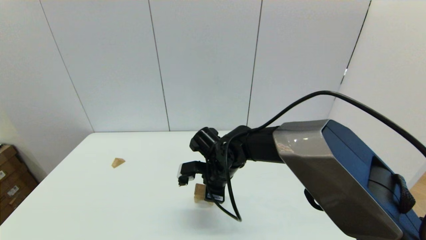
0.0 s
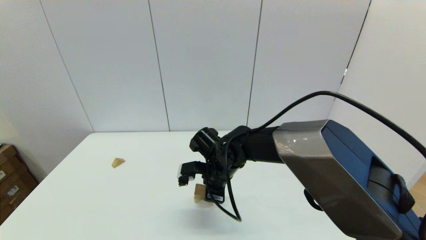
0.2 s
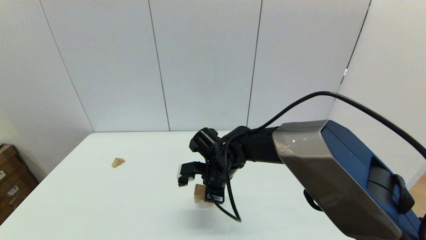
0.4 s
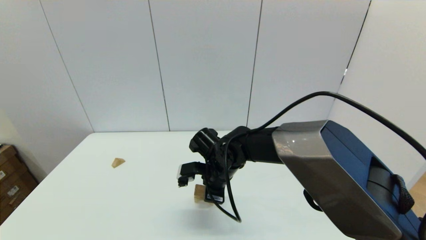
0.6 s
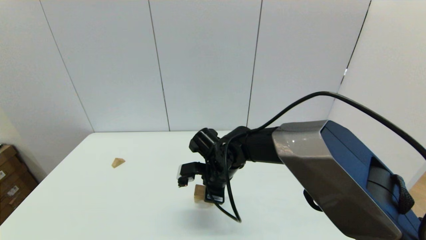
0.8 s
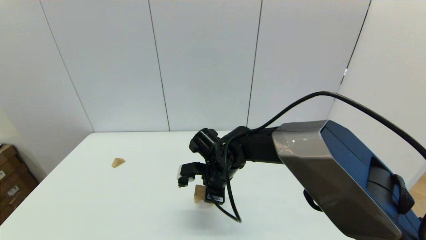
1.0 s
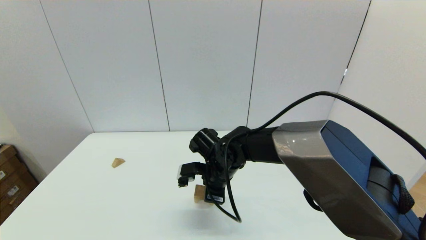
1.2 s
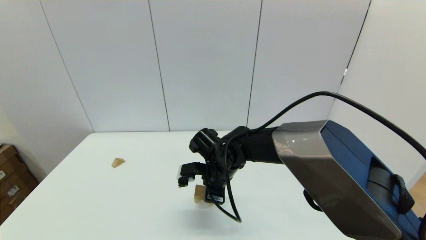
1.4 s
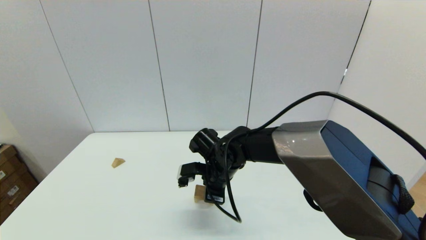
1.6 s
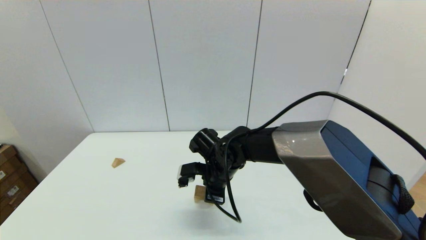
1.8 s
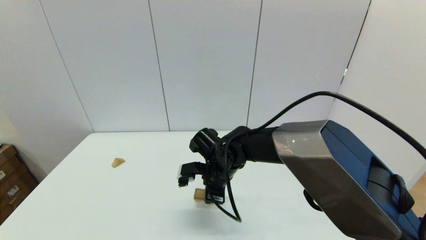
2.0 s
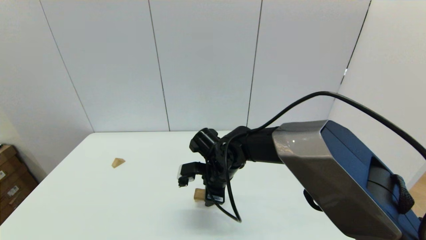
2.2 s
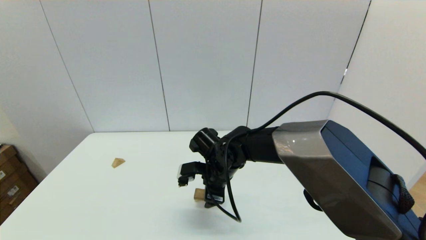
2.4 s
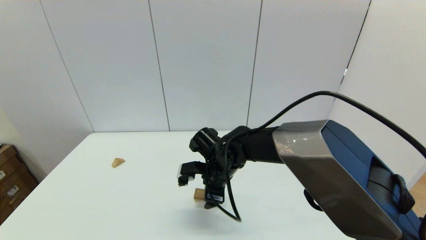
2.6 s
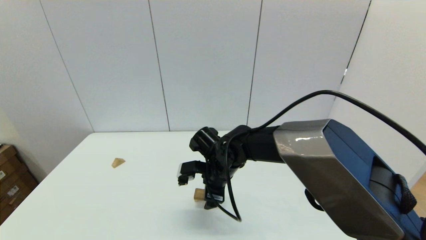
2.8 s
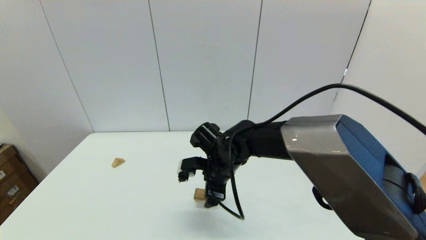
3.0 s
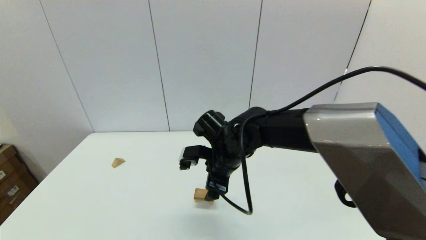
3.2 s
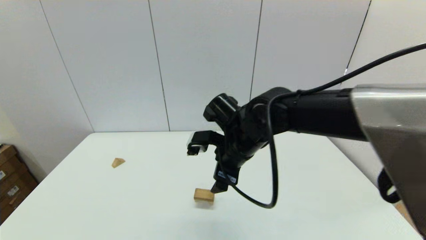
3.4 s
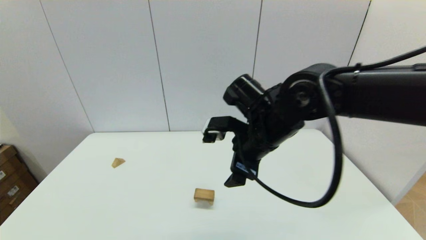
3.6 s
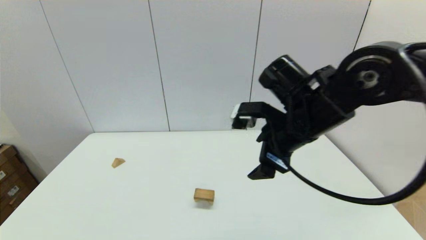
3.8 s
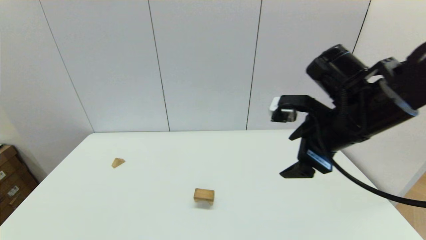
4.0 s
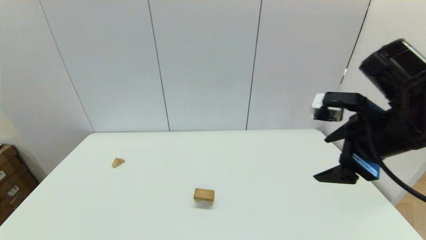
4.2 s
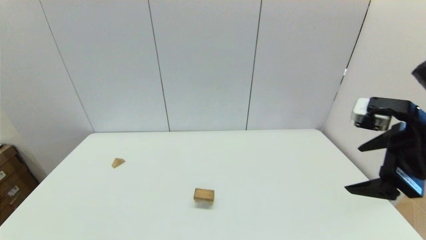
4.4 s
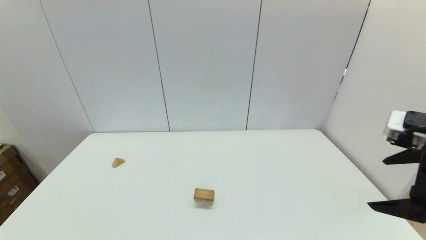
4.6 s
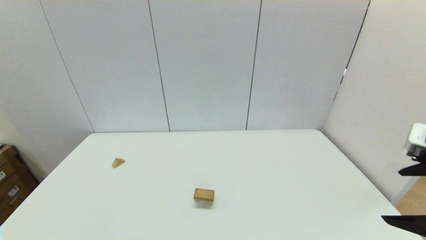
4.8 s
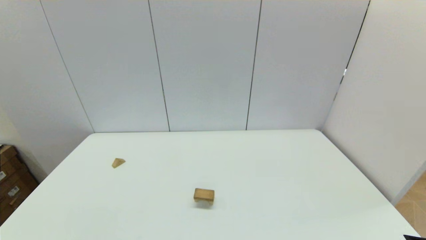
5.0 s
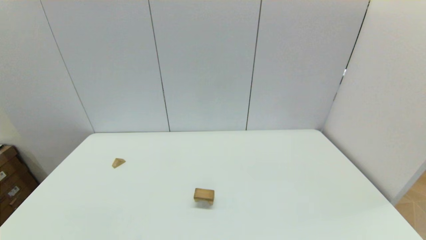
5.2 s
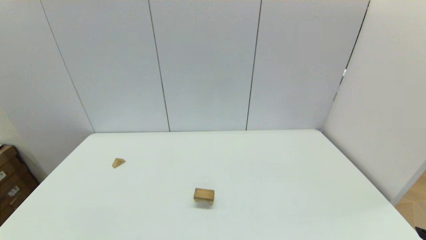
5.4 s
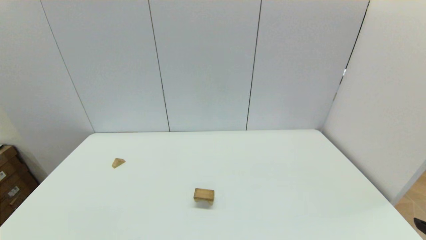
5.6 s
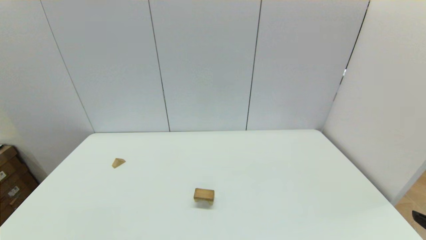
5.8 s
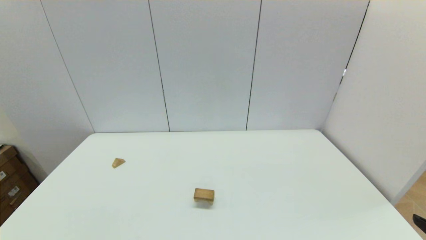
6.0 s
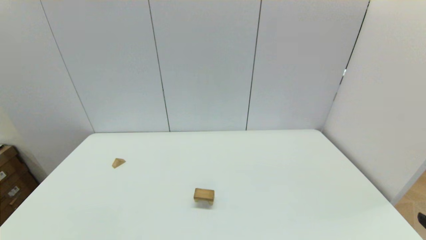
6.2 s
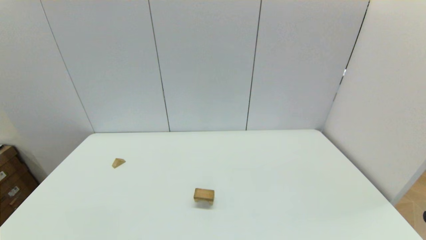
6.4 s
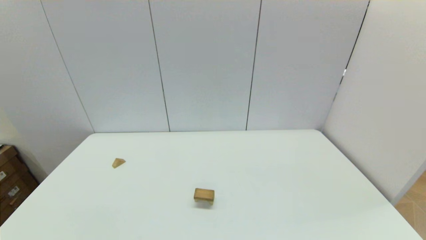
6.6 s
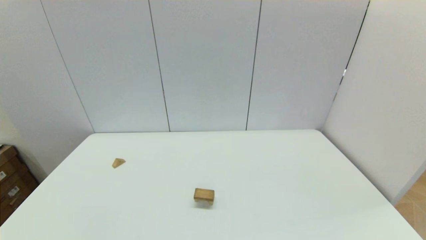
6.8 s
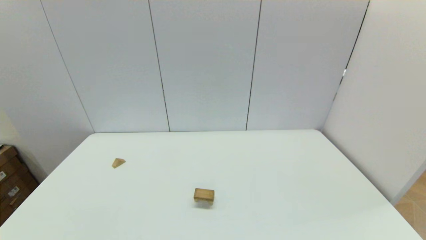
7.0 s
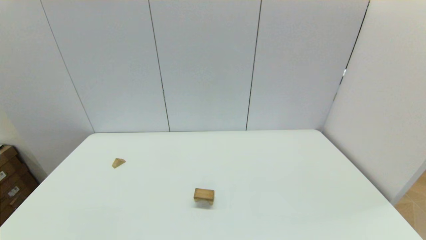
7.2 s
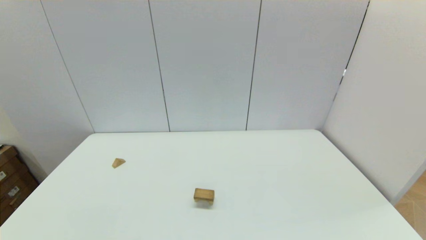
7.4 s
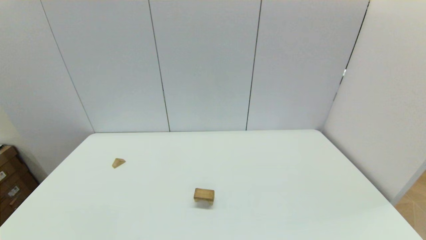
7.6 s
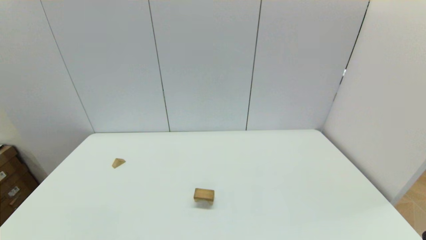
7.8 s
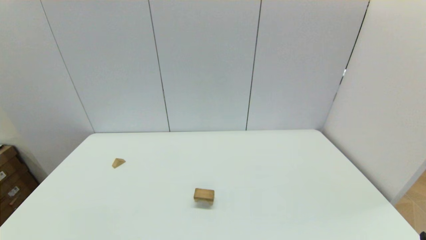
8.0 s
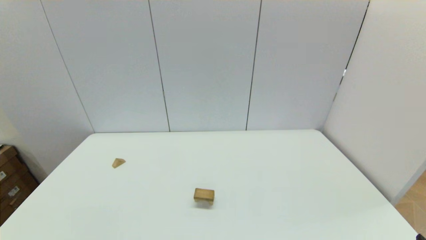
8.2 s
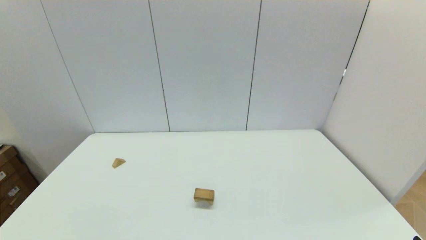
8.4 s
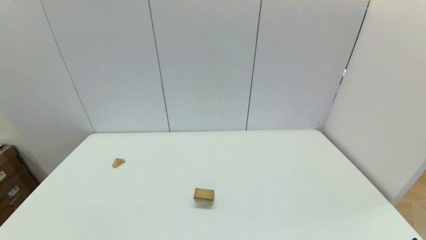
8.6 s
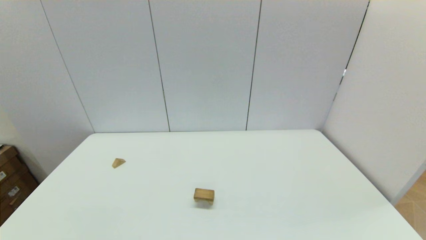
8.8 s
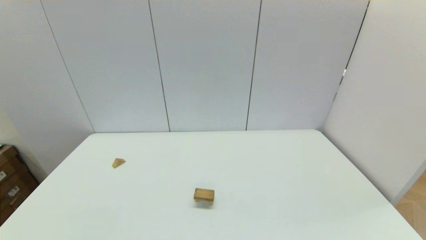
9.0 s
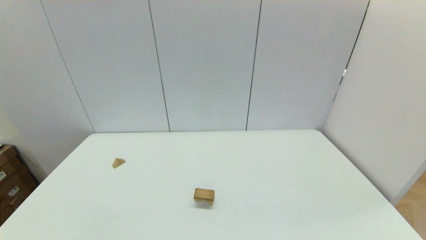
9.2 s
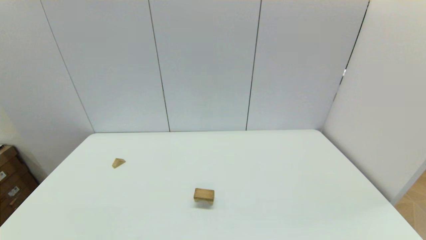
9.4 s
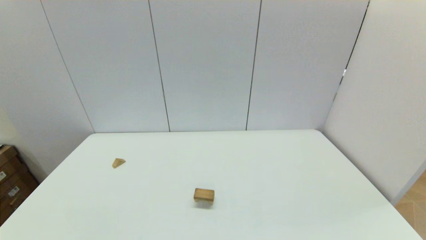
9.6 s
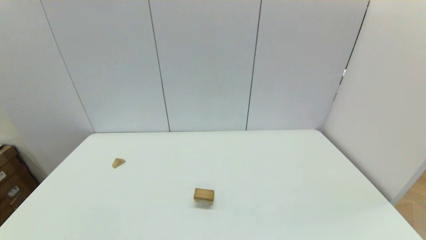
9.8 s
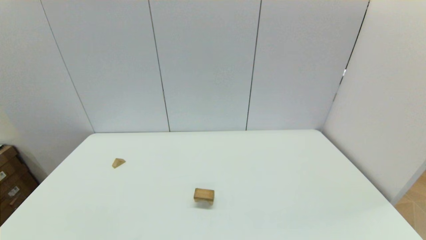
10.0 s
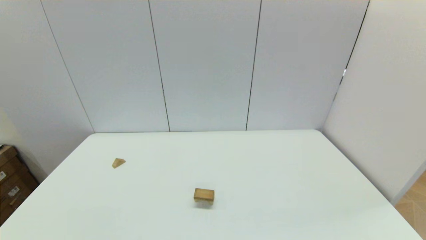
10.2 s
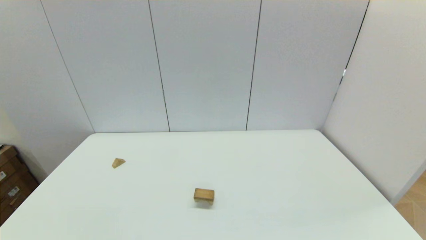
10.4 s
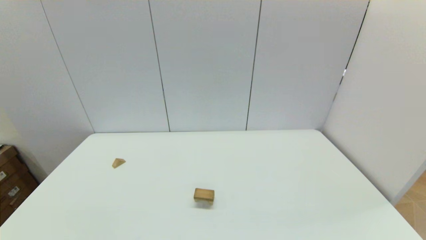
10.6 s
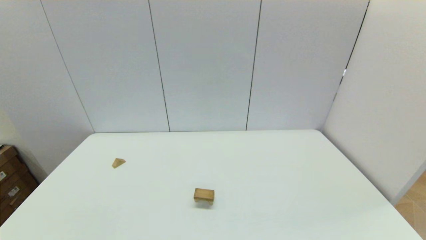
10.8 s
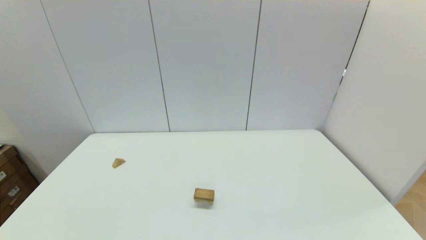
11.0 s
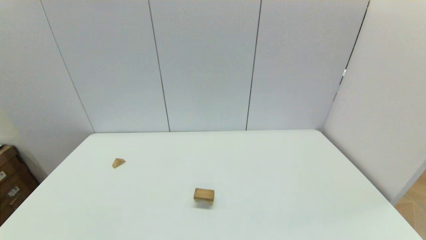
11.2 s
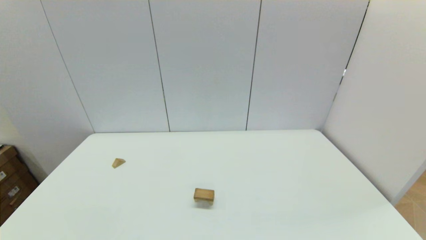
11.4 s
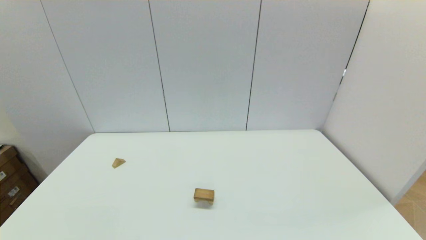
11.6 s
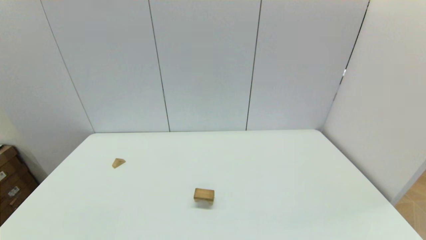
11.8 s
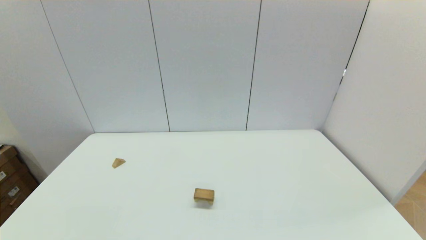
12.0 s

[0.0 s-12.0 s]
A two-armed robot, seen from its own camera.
Task of the whole recording: place the arched building blocks in the center of the table, set up the rectangular building blocks, and then set up the triangular building blocks.
Step, 0.0 to 2.2 s: Place the box-shaped block onto the arch-shaped block with the right gripper.
0.0 to 1.6 s: Both grippers stay put.
1.6 to 3.0 s: The right gripper opens up.
3.0 to 4.4 s: The right gripper shifts about 35 cm to the right, upward and backward.
4.4 to 6.0 s: The right gripper heads backward and downward, covering about 15 cm.

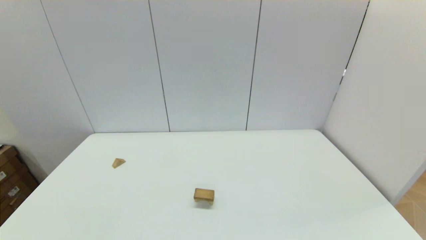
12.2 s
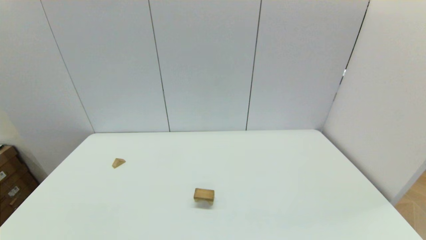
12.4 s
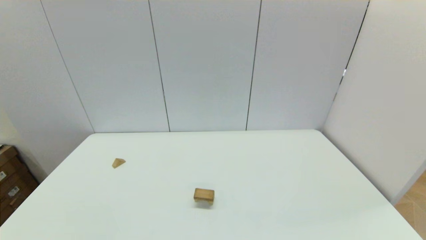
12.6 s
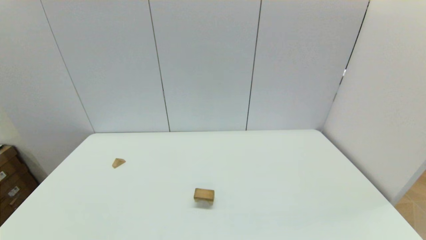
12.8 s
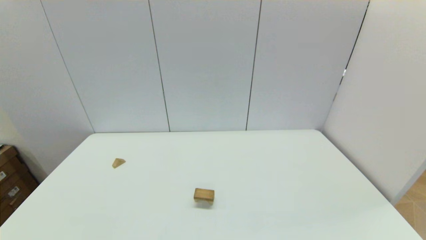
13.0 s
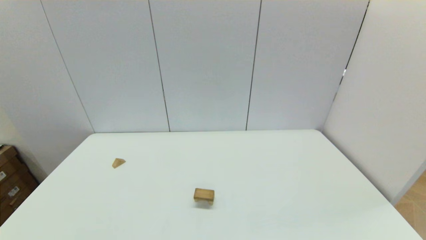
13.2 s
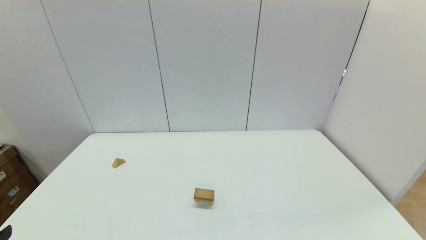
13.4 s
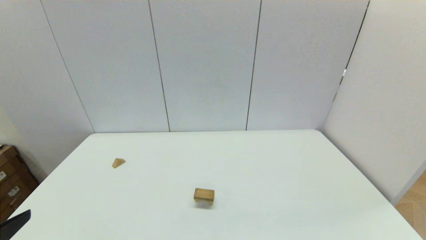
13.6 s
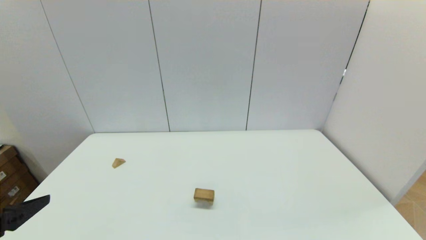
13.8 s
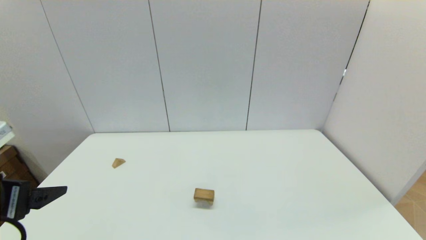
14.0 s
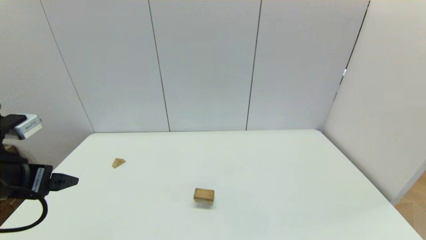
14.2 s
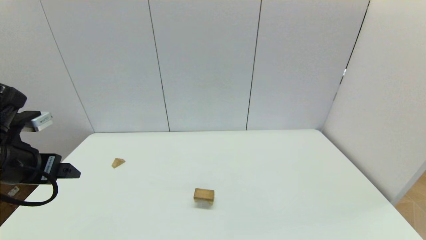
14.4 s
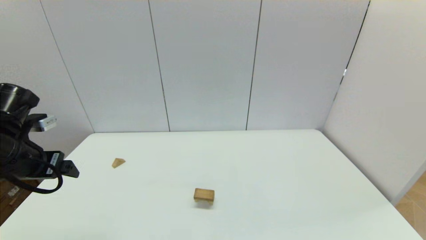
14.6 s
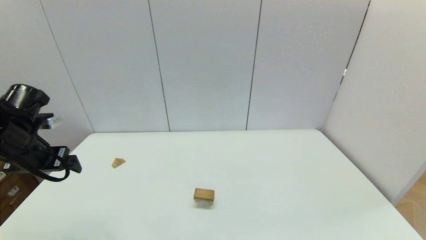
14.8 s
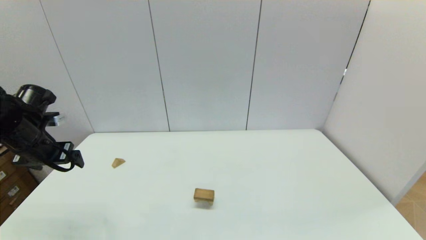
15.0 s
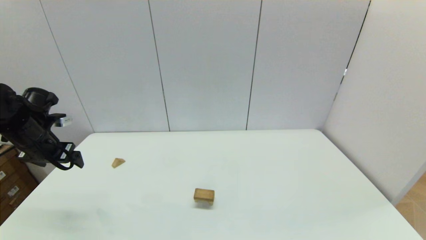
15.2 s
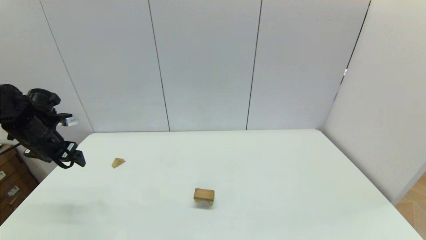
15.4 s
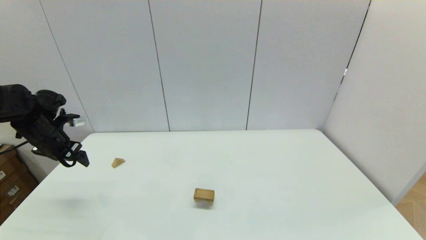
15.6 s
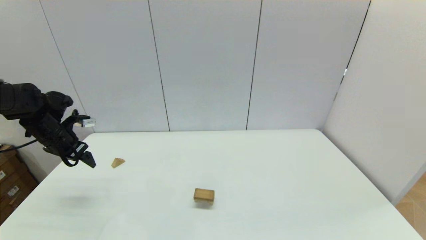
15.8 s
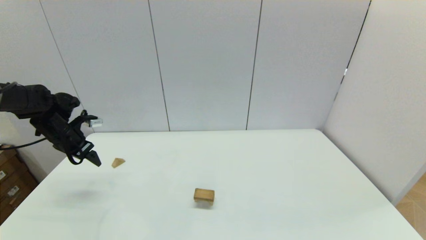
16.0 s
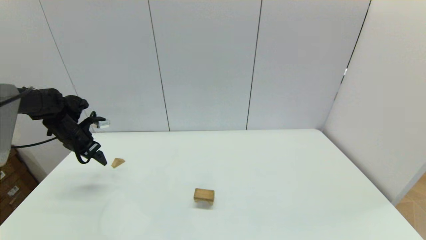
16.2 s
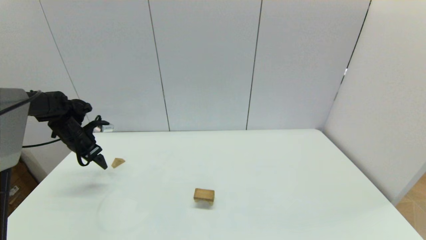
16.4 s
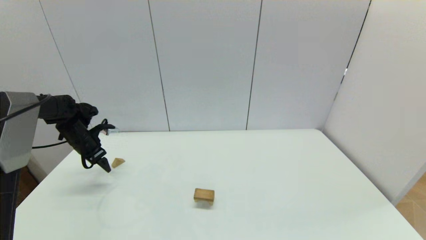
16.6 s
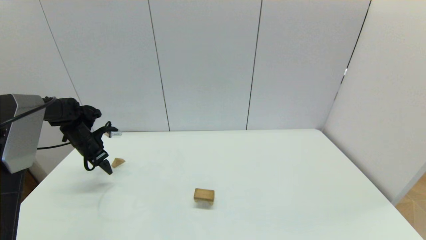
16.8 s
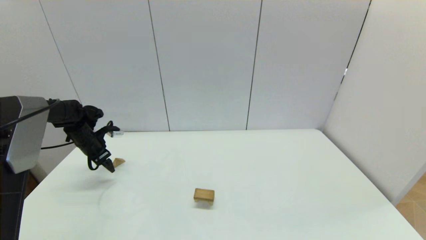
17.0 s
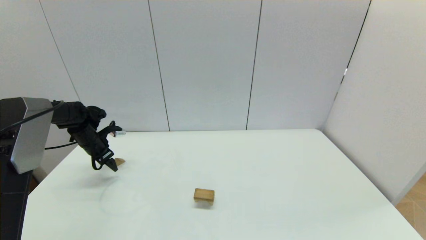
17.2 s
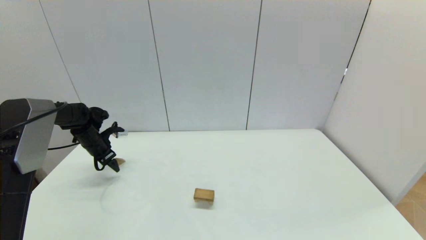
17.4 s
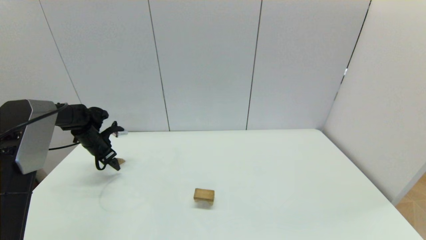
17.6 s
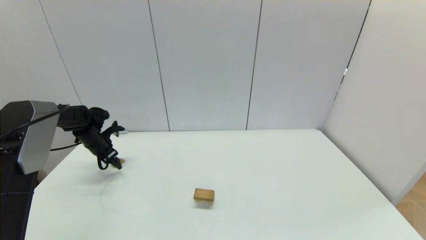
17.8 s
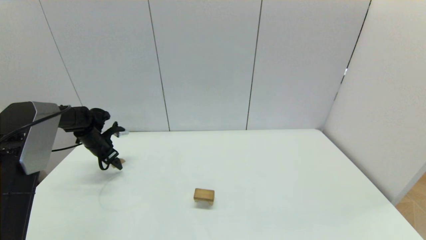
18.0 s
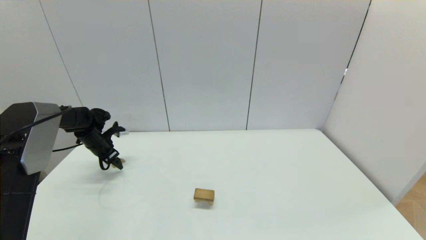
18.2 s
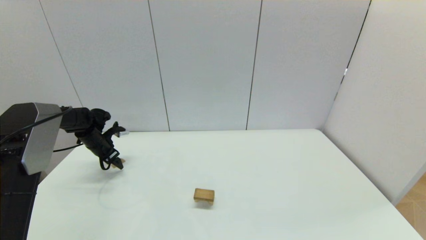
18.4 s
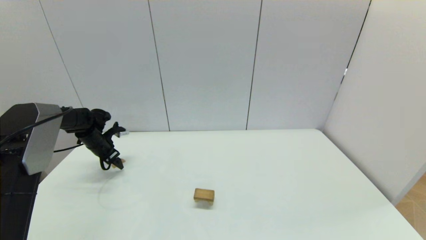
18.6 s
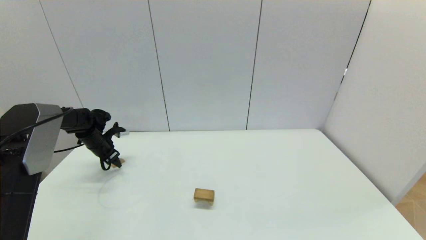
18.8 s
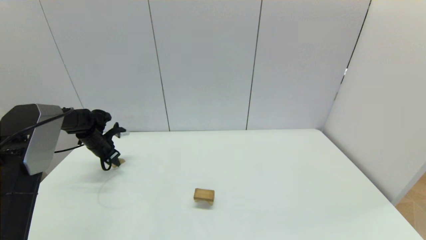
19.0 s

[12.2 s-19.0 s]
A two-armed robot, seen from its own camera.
Task of the whole recording: place the arched building blocks in the center of the table, set up the rectangular building blocks, and then set up the triangular building blocks.
13.6 to 15.0 s: The left gripper heads forward, covering approximately 25 cm.
15.0 to 16.2 s: The left gripper moves forward and downward, some 15 cm.
16.2 to 17.6 s: The left gripper is displaced downward by approximately 5 cm.
17.6 to 19.0 s: The left gripper closes up.
